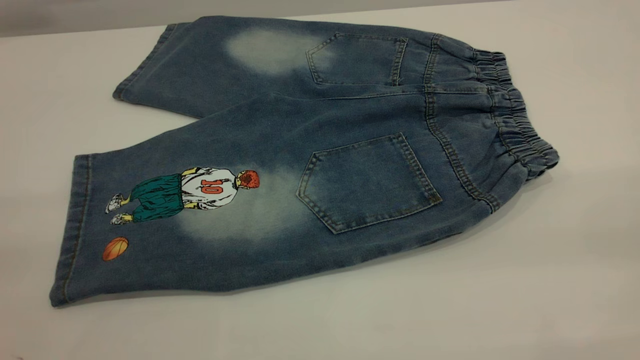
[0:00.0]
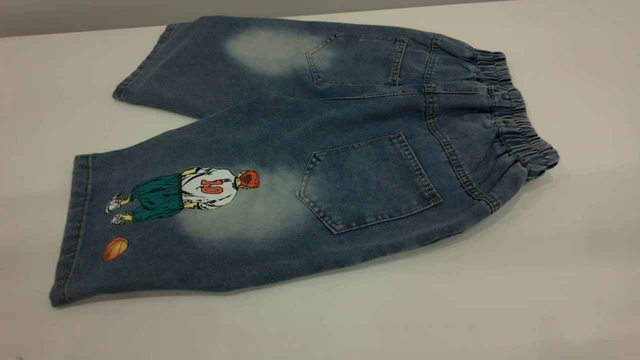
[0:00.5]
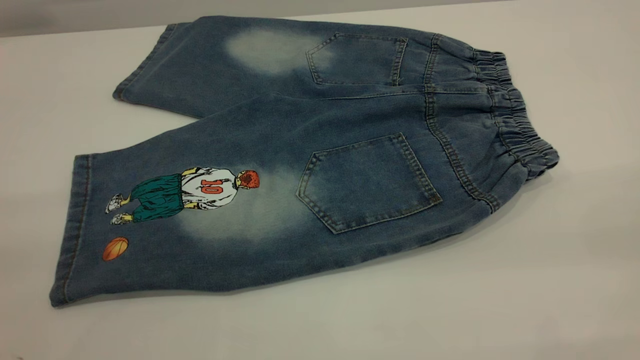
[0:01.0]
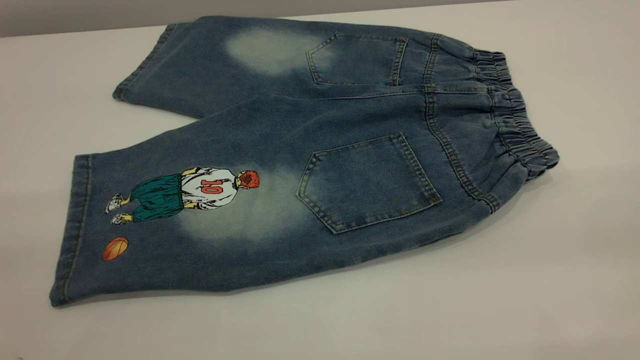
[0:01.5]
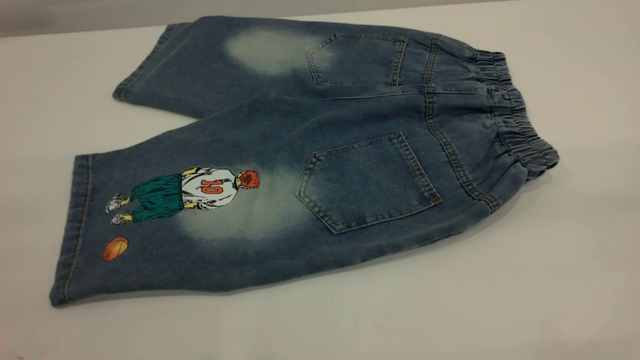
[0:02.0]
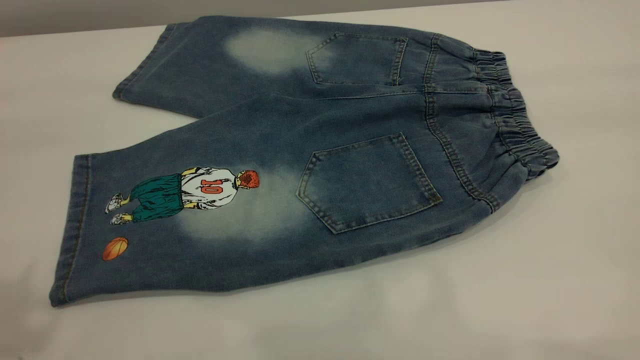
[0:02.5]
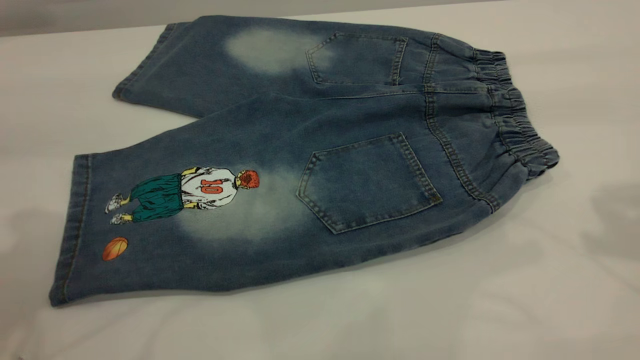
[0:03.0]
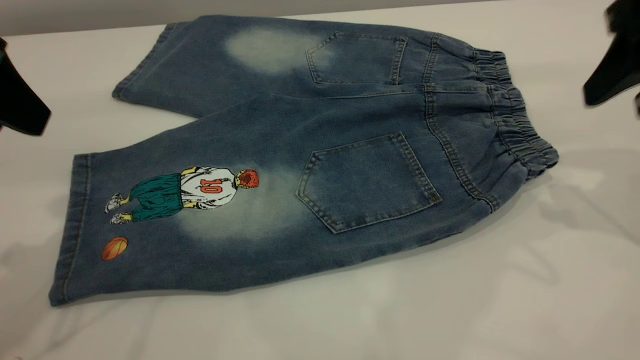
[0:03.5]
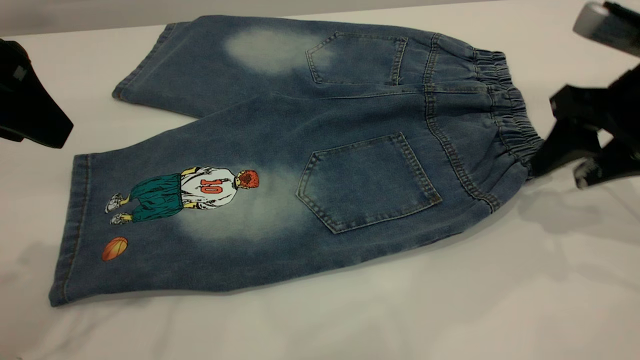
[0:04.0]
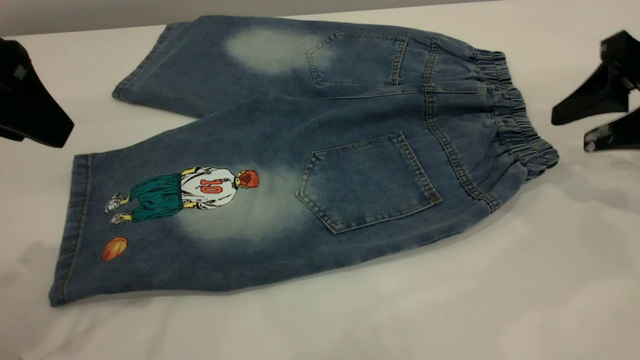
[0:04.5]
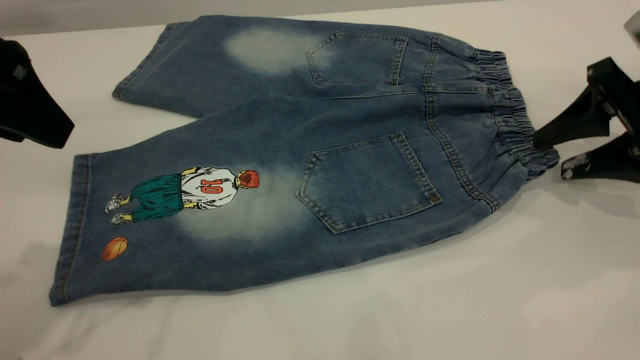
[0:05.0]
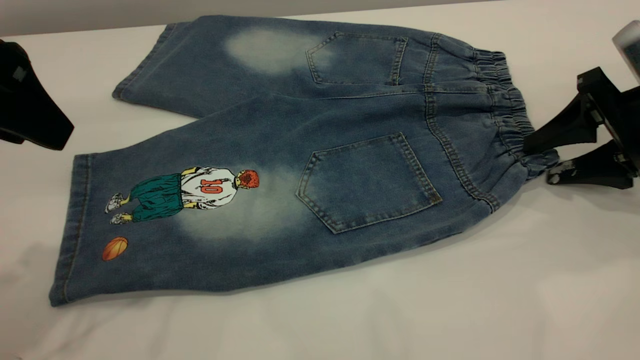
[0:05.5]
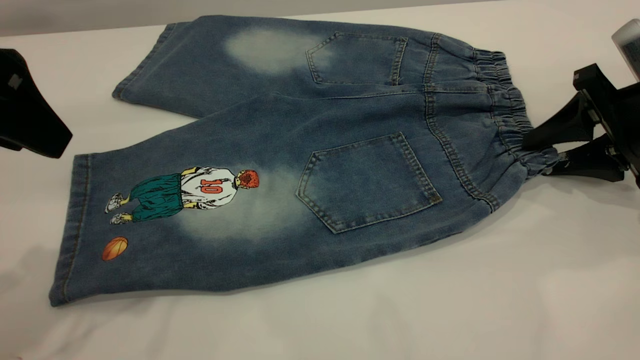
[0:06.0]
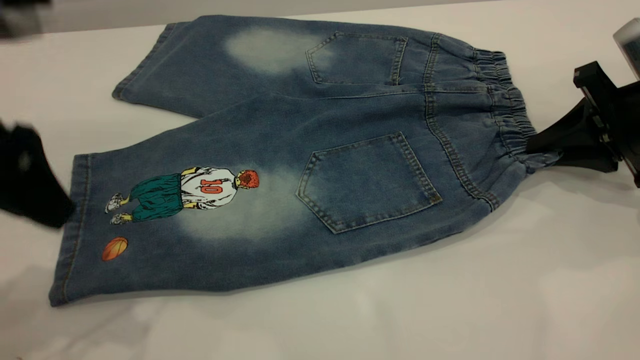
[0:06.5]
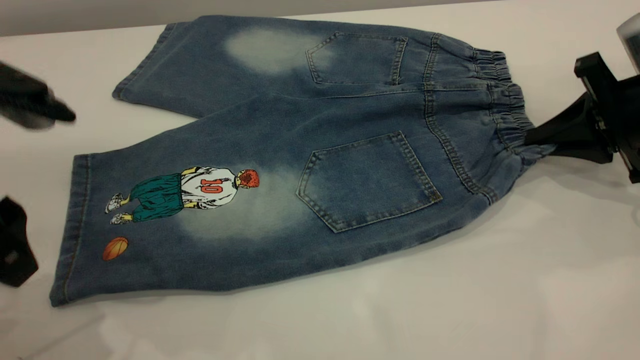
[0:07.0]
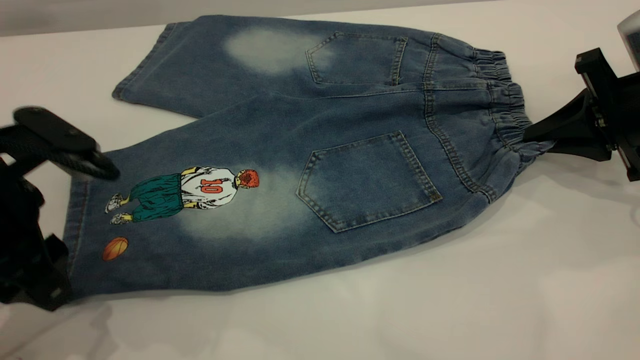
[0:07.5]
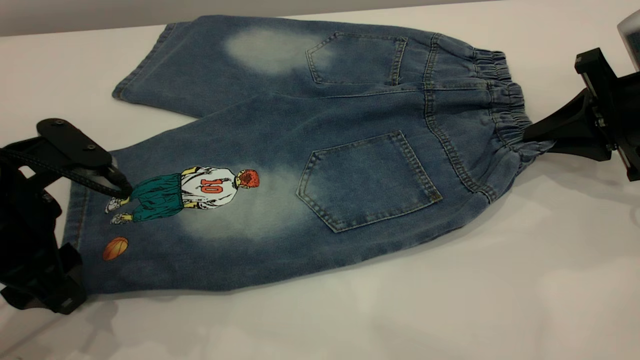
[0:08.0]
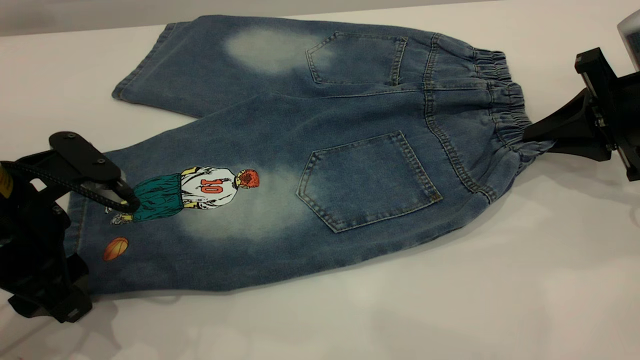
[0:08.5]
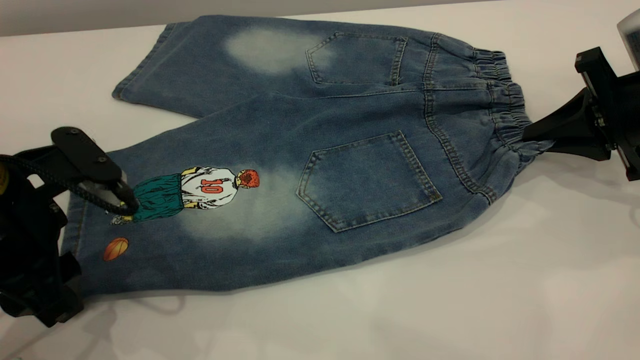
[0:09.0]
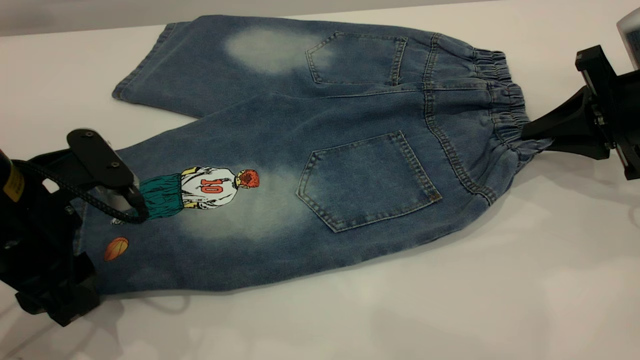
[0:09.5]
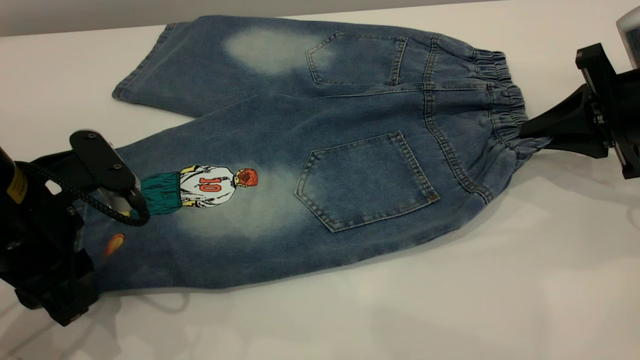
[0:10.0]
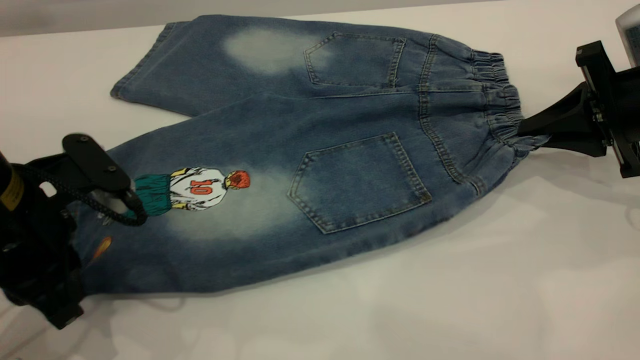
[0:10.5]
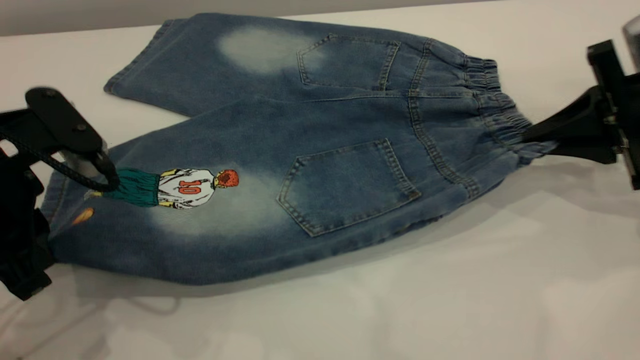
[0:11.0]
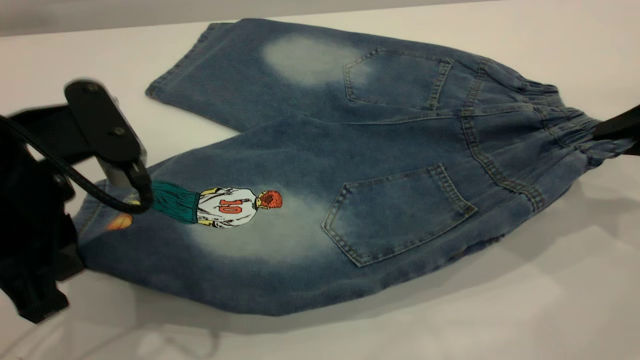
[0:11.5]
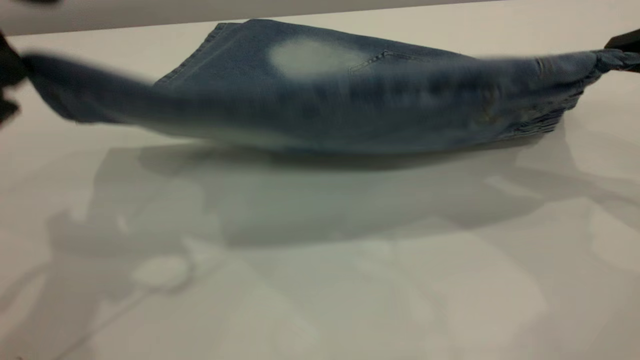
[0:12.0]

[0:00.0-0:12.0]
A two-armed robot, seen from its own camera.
0:02.0 to 0:04.0: The right gripper shifts roughly 35 cm forward and downward. Meanwhile the left gripper is displaced forward and downward by some 25 cm.
0:04.0 to 0:06.0: The right gripper travels downward by roughly 5 cm.
0:06.0 to 0:08.0: The left gripper heads downward, covering approximately 15 cm; the right gripper closes its fingers.
0:08.0 to 0:10.0: There are only small adjustments of the grippers.
0:10.0 to 0:12.0: The left gripper travels upward by roughly 15 cm, and closes. The right gripper is displaced upward and backward by about 10 cm.

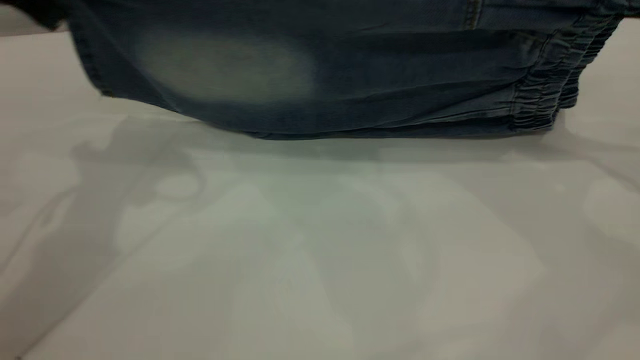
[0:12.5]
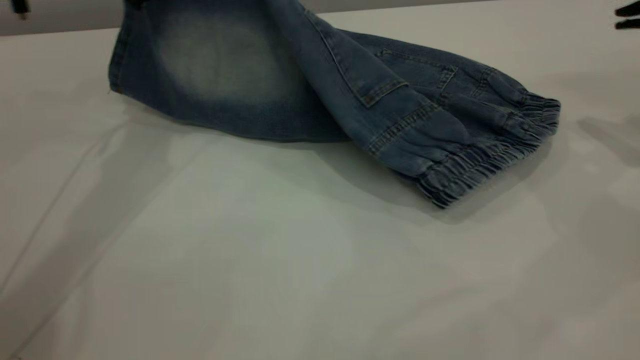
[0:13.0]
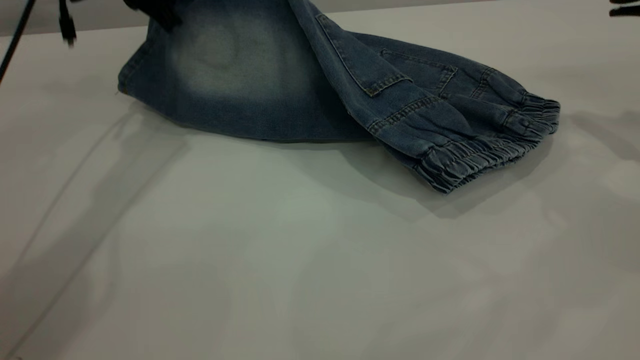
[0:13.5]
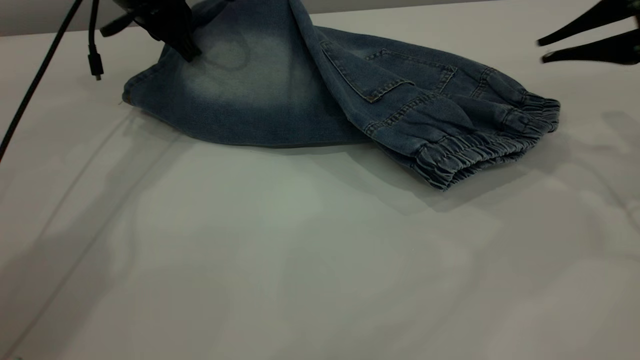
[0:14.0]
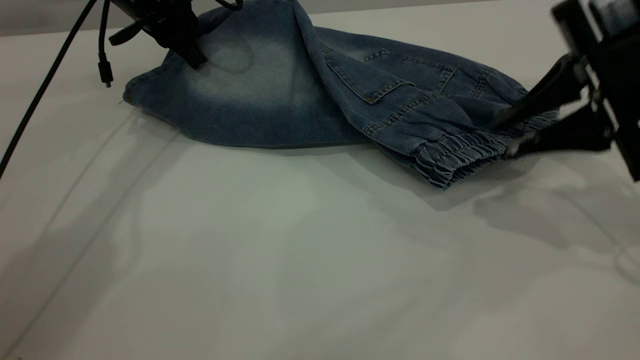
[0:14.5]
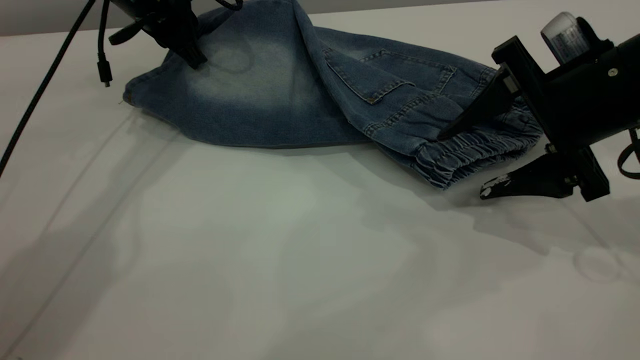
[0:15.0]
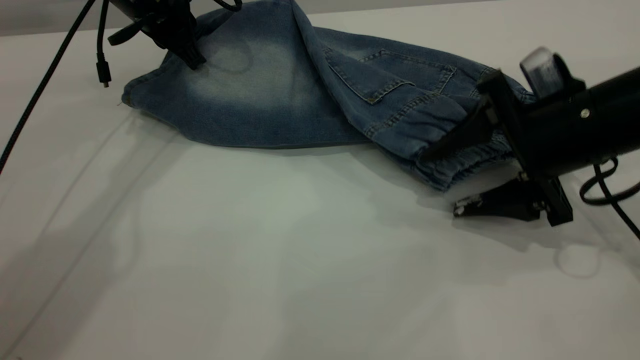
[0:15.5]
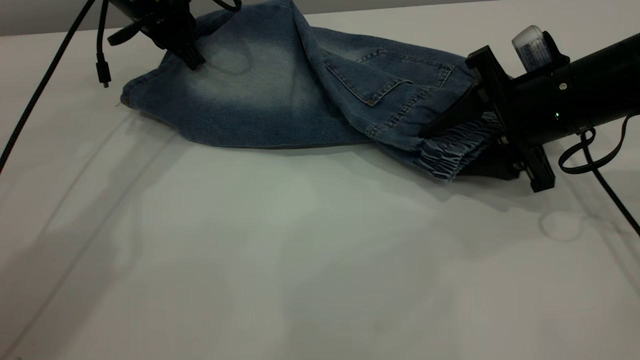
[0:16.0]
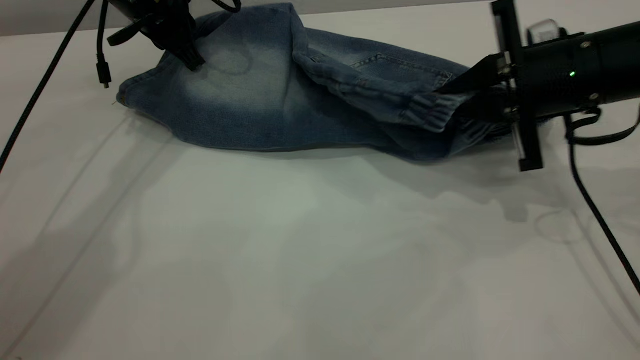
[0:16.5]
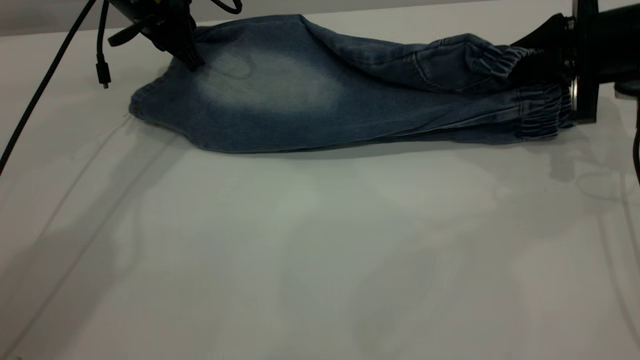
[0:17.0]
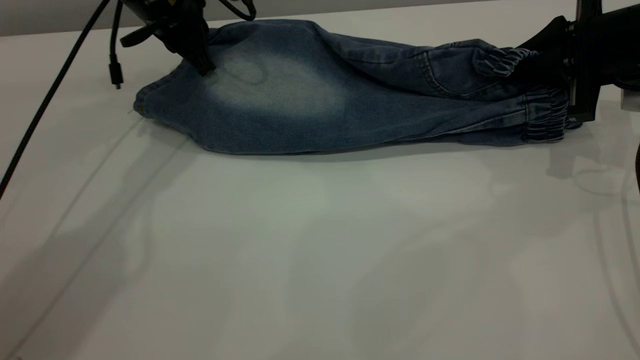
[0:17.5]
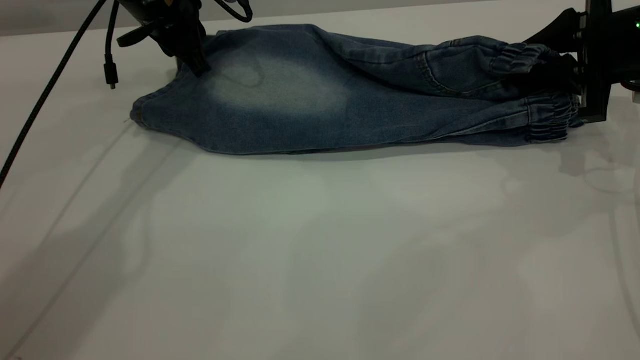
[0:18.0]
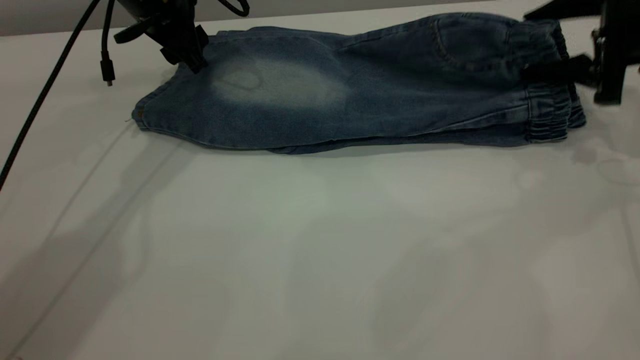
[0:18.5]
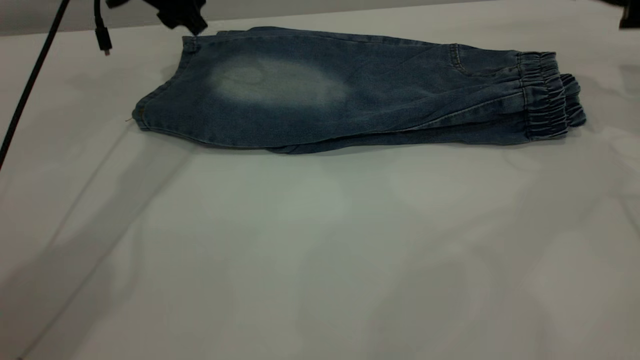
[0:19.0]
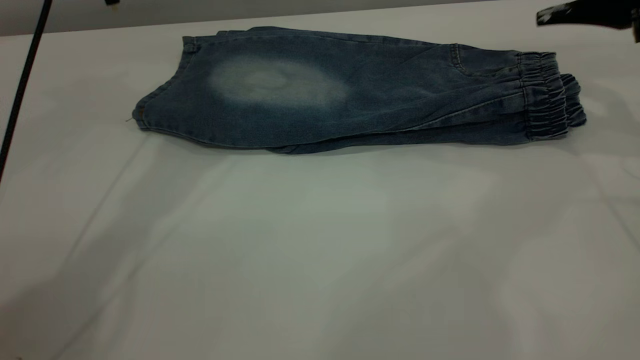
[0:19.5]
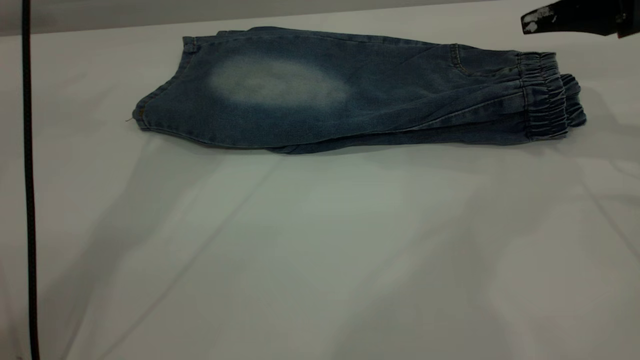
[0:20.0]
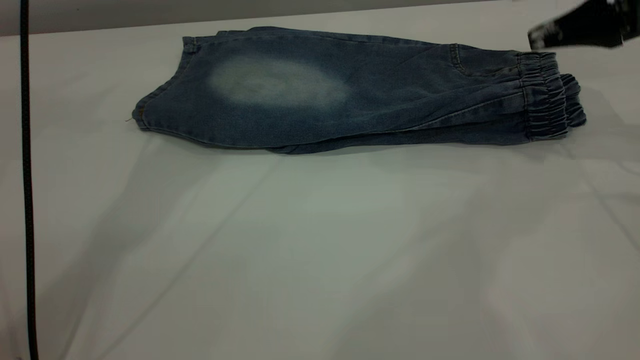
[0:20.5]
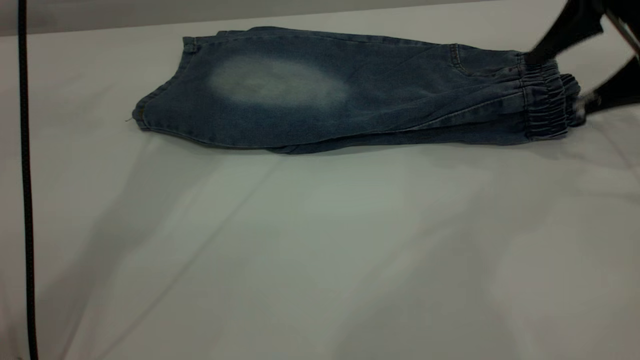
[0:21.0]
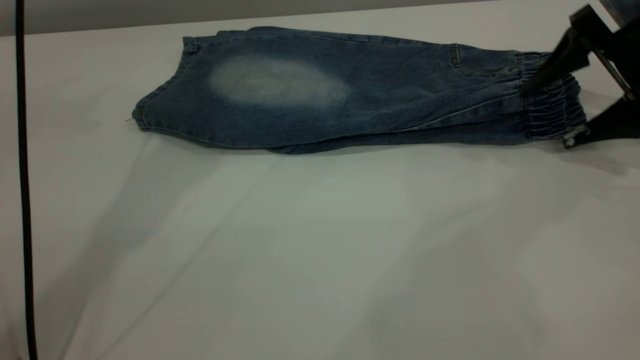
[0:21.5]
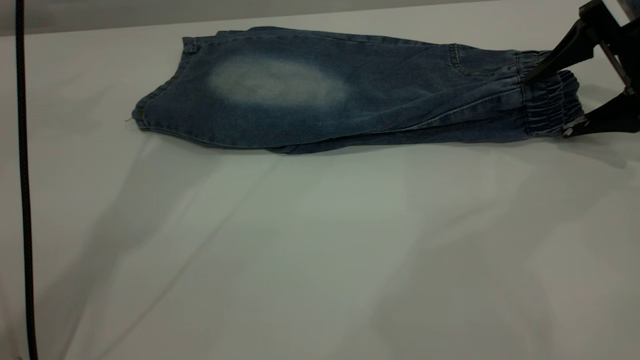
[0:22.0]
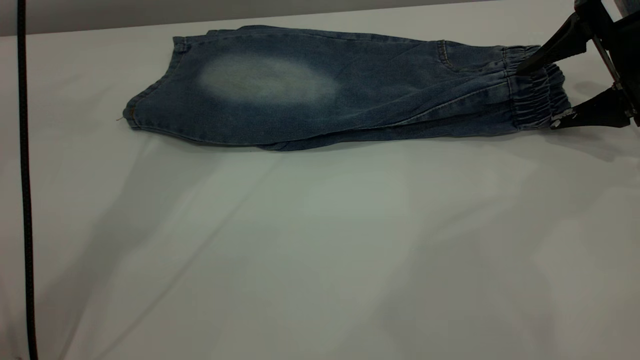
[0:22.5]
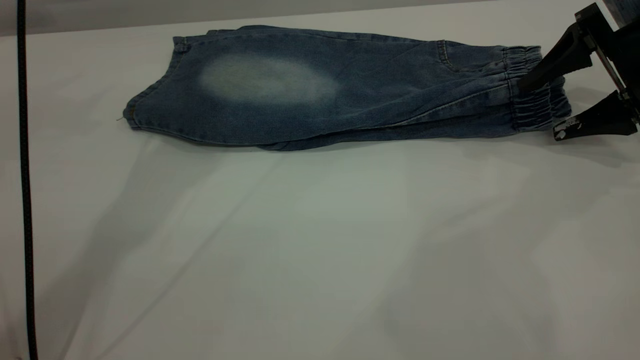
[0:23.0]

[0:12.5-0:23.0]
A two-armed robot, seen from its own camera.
Step, 0:12.5 to 0:19.0: Fold the bottom of the pants upward.
0:12.5 to 0:14.5: The right gripper heads to the left and downward, covering approximately 10 cm, while the left gripper goes approximately 20 cm forward and downward.
0:14.5 to 0:16.5: The right gripper heads forward, covering about 5 cm, and opens, then closes once more.
0:16.5 to 0:19.0: The left gripper goes roughly 5 cm upward, and opens up; the right gripper shifts approximately 15 cm to the right, upward and forward, and opens up.
0:19.0 to 0:21.0: The left gripper heads upward, covering roughly 15 cm, while the right gripper moves approximately 5 cm.
0:21.0 to 0:23.0: There are only small adjustments of the grippers.
